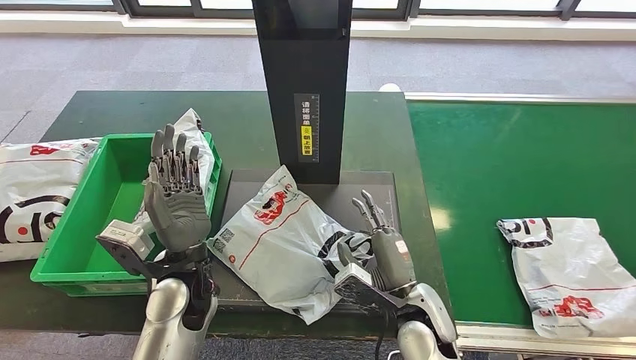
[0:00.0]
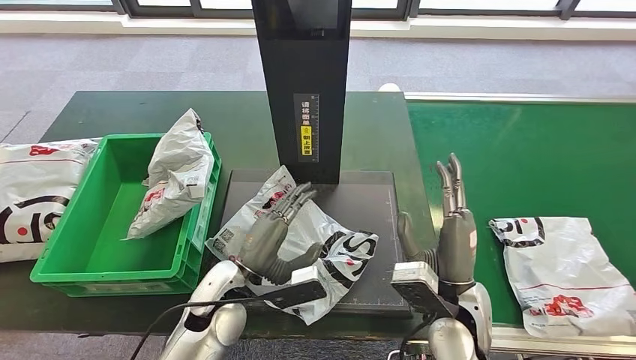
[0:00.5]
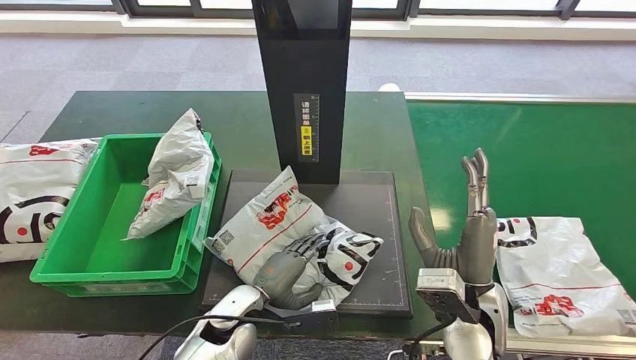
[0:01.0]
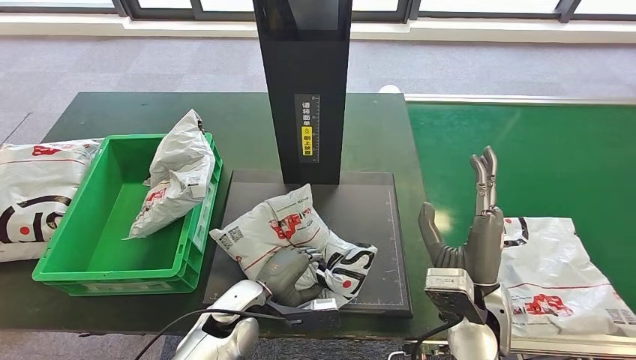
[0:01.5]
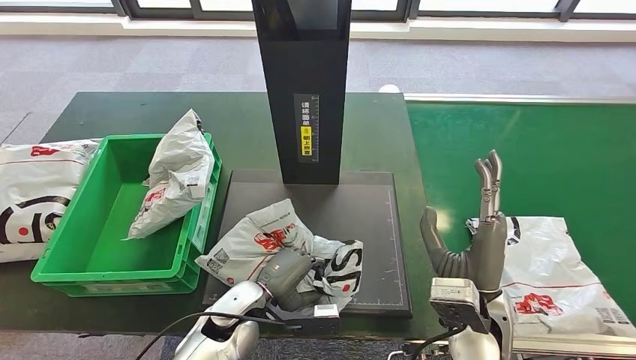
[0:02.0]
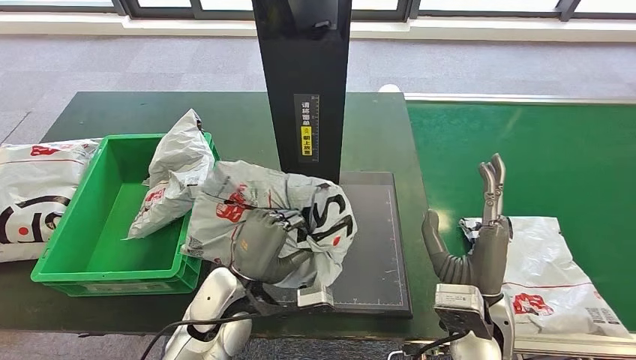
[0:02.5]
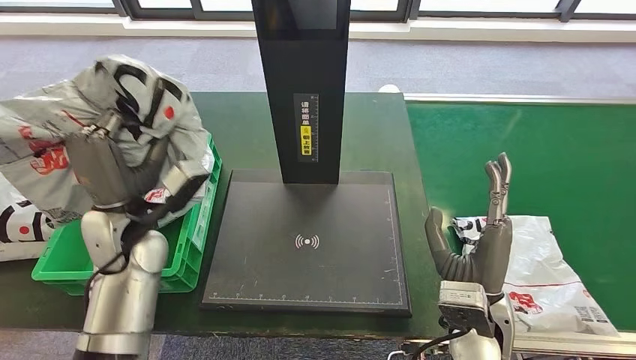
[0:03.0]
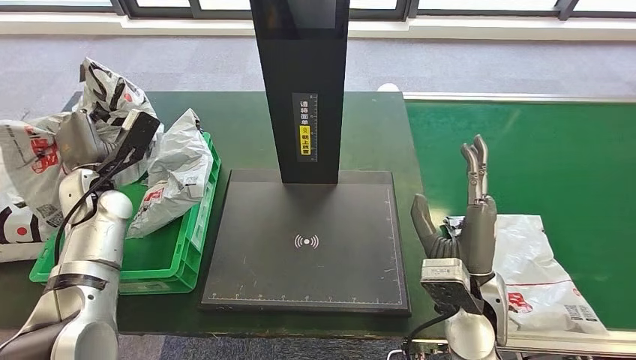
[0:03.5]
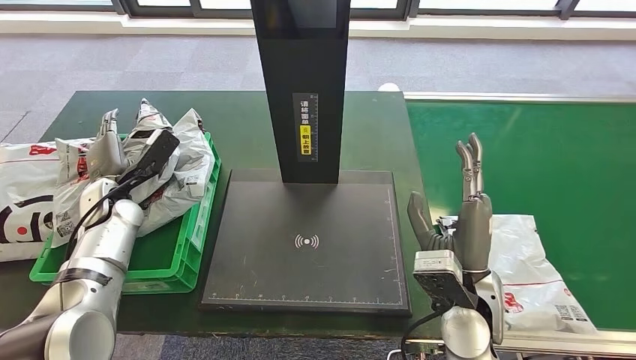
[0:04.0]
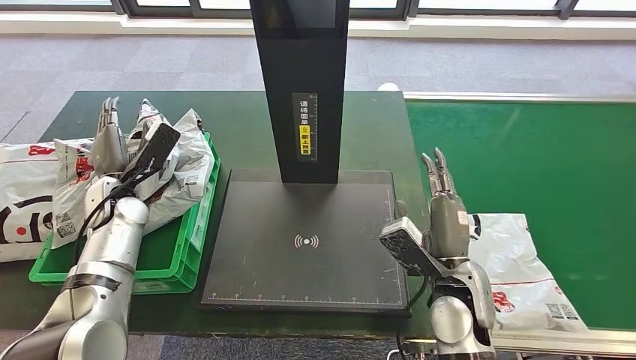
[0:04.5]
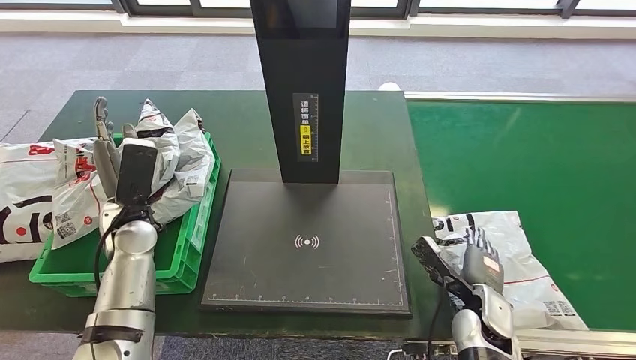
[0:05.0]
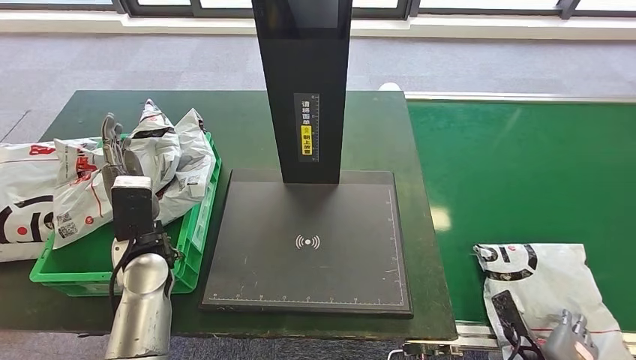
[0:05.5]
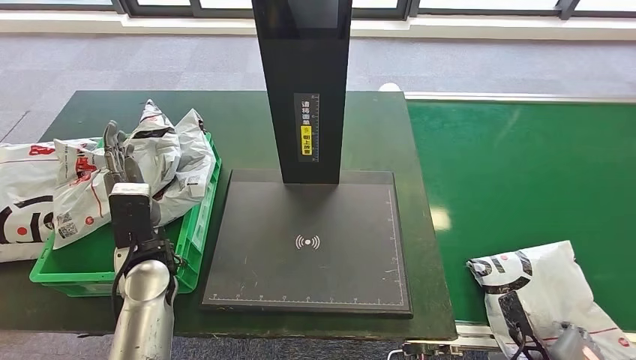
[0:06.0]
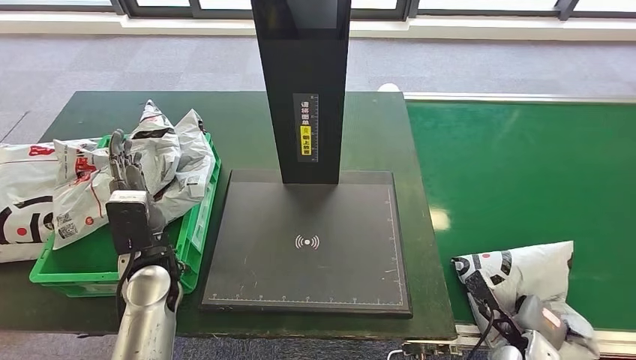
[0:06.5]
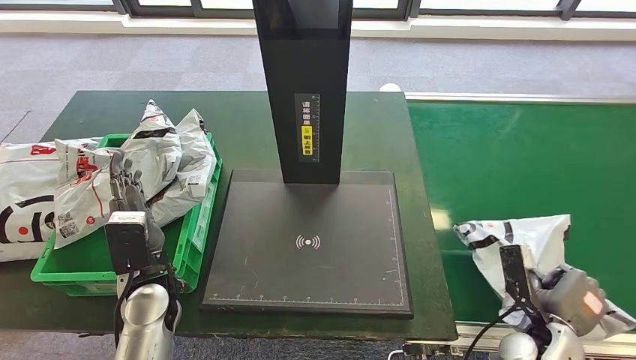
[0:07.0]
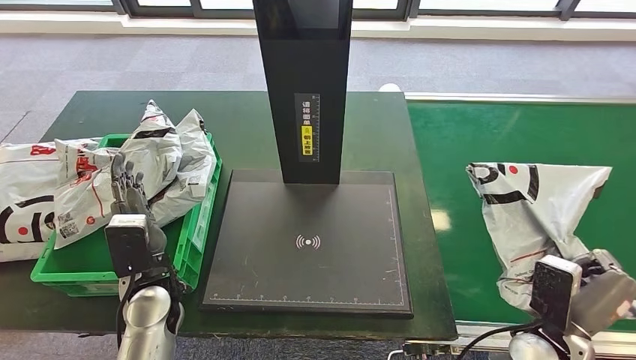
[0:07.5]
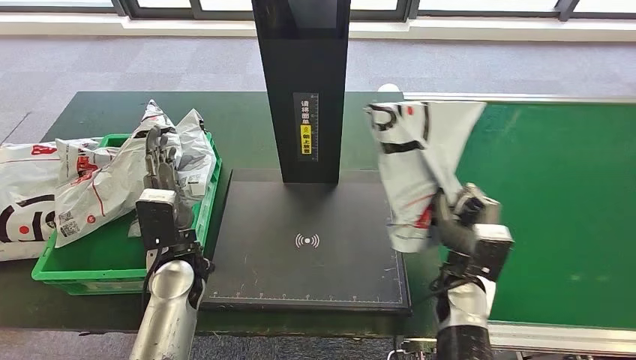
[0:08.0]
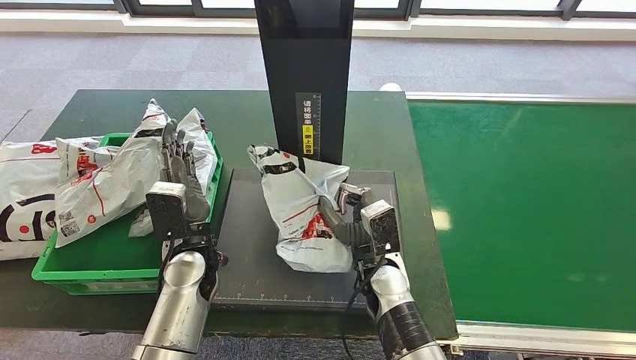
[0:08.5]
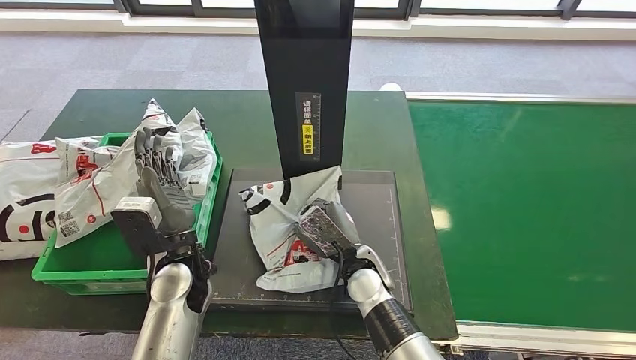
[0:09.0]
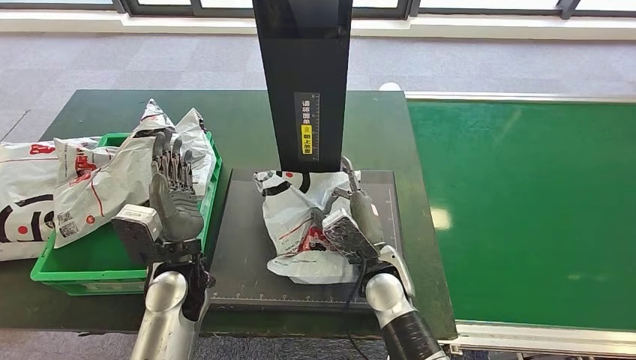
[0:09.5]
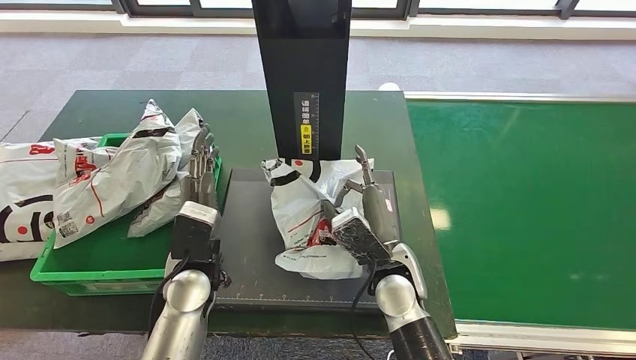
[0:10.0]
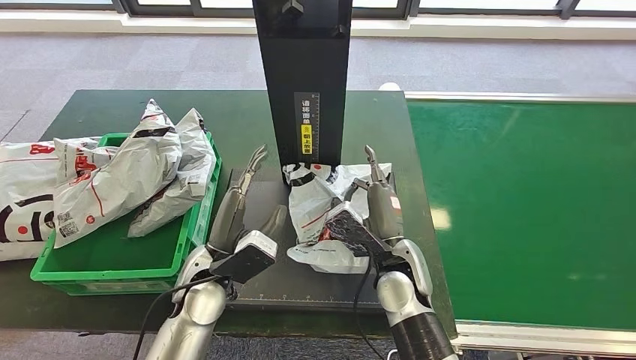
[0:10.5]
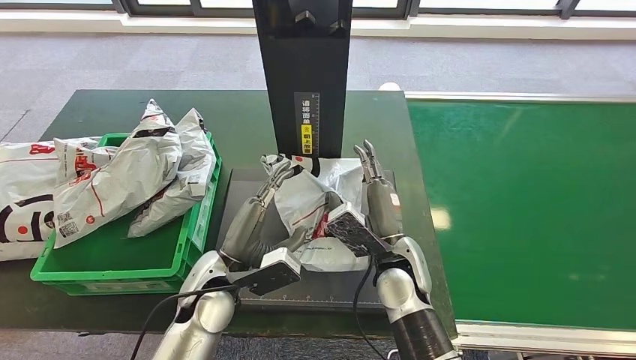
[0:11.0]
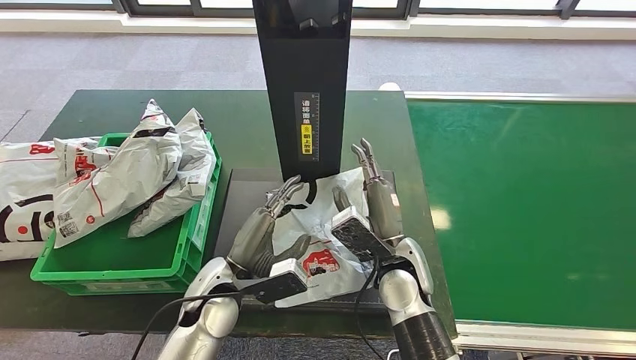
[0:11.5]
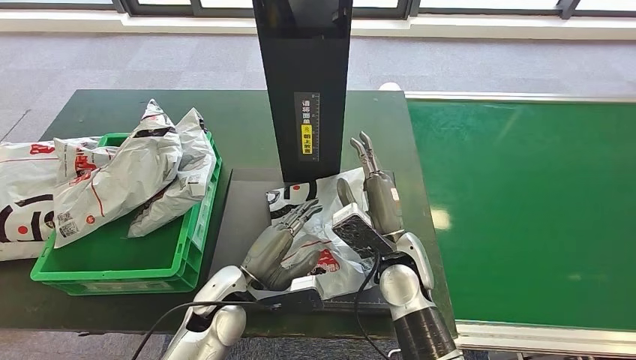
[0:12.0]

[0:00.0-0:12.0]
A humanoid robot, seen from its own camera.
Step, 0:00.0 to 0:02.5: Pick up the parcel from the inbound machine.
Step, 0:03.0 to 0:04.5: Place the parcel into the delivery box.
Step, 0:05.0 to 0:07.5: Pick up the parcel from the conveyor belt.
Step, 0:08.0 to 0:11.5: Place the parcel onto the inbound machine.
0:04.0 to 0:06.0: The right hand travels to the right, downward and backward by roughly 25 cm, while the left hand travels to the right and backward by about 15 cm.
0:10.0 to 0:12.0: The left hand travels downward by roughly 5 cm.

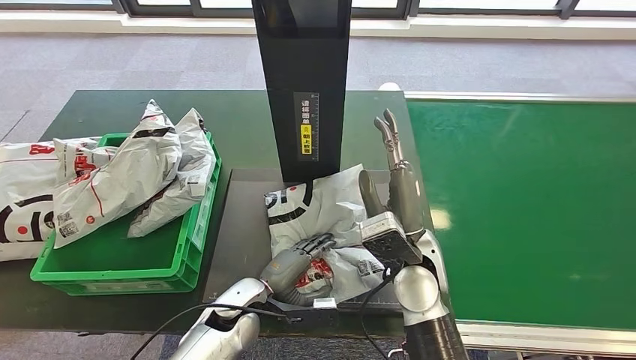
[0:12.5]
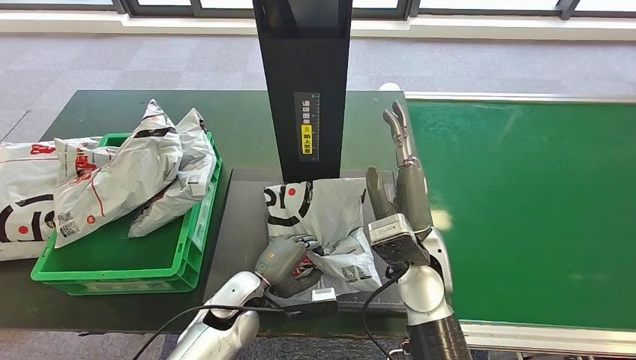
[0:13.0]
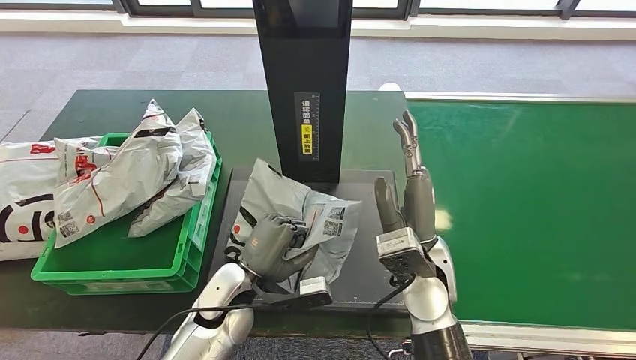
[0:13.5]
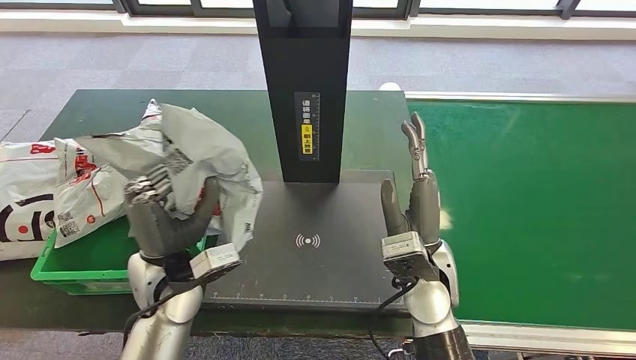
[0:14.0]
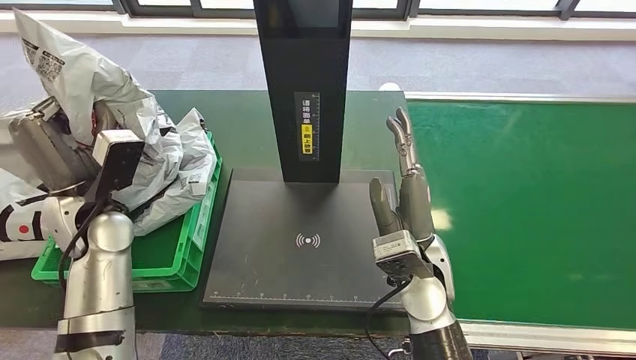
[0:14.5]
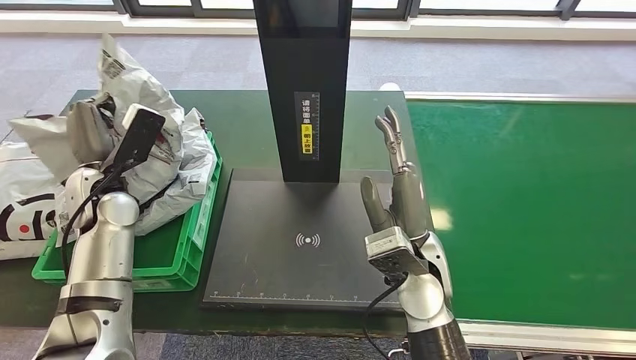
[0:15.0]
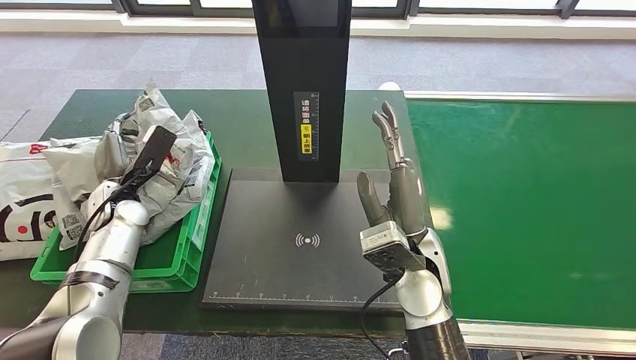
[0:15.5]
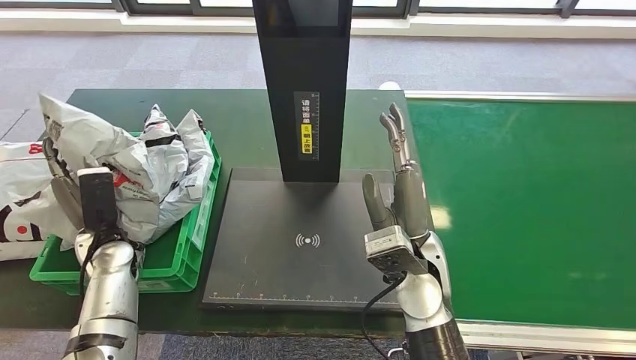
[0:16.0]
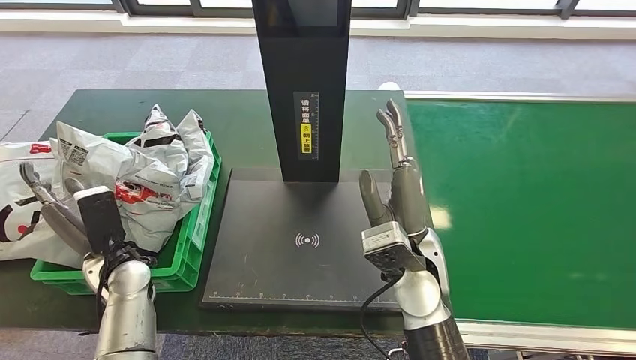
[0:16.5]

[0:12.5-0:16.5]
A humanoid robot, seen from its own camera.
Step, 0:14.5 to 0:16.5: Place the parcel into the delivery box.

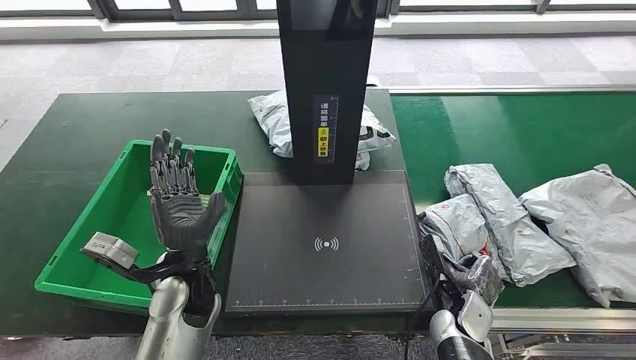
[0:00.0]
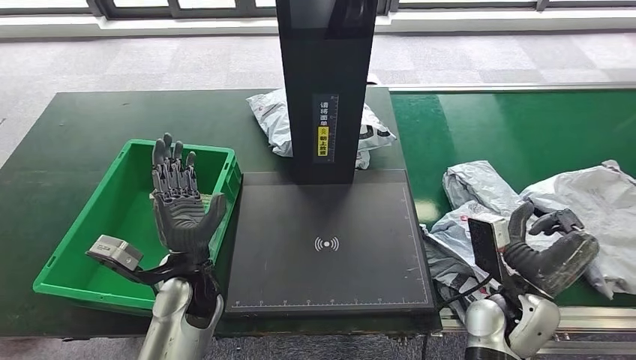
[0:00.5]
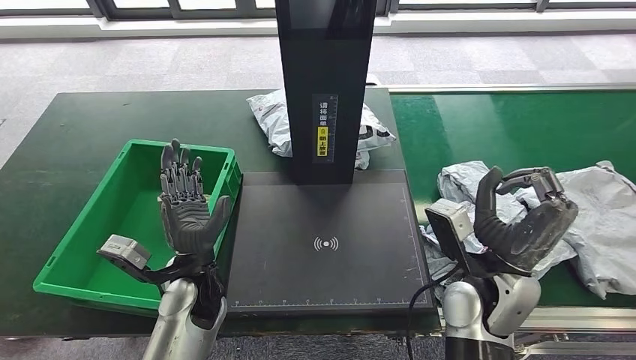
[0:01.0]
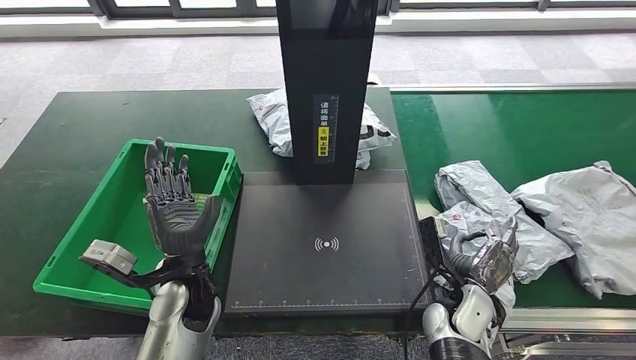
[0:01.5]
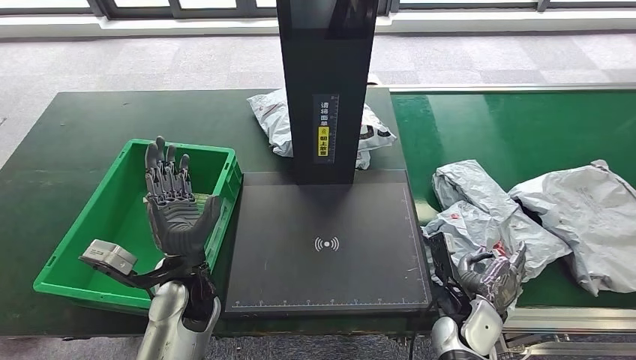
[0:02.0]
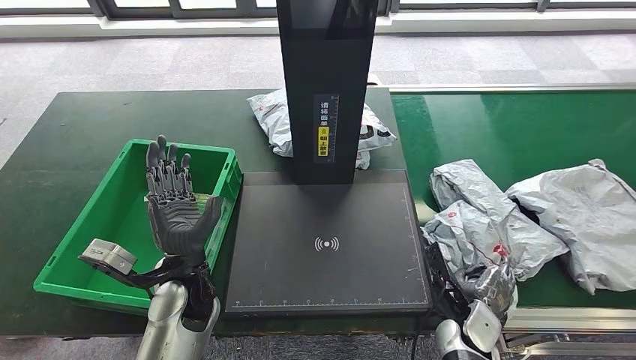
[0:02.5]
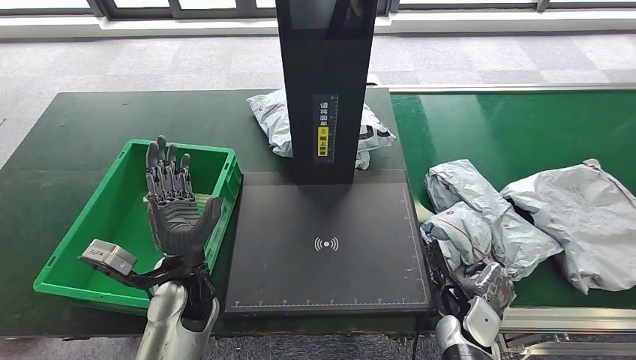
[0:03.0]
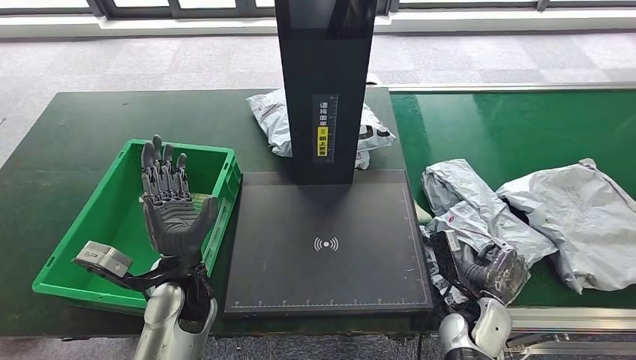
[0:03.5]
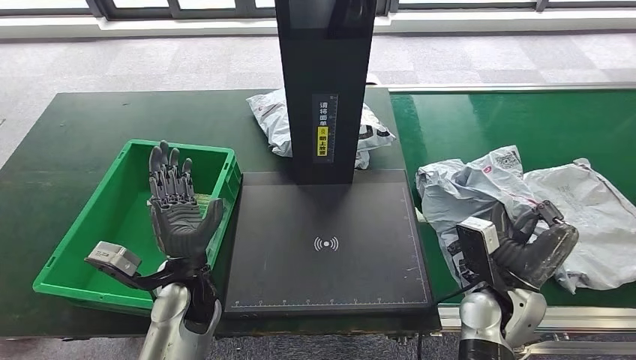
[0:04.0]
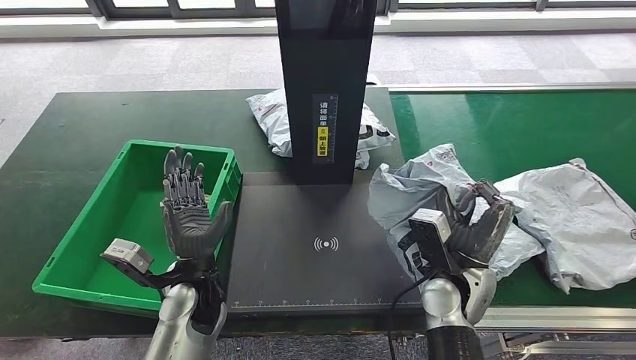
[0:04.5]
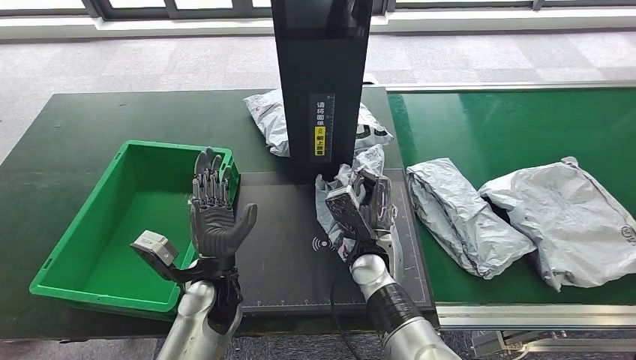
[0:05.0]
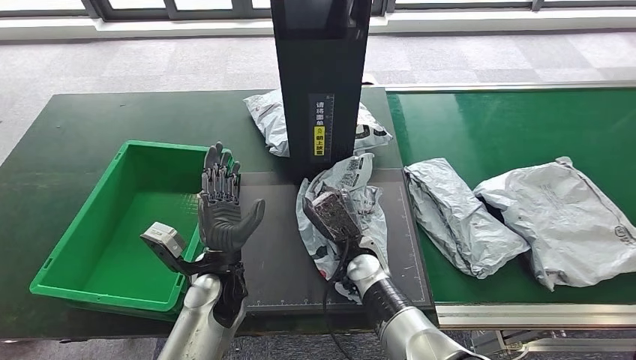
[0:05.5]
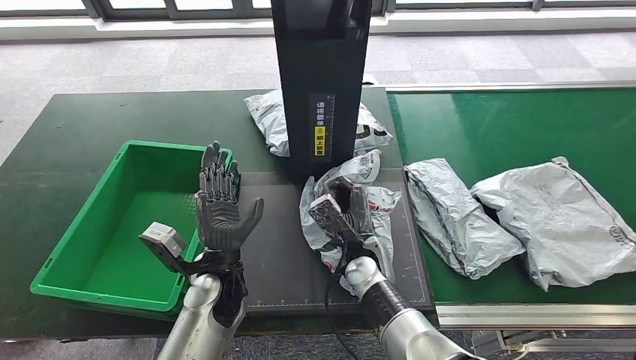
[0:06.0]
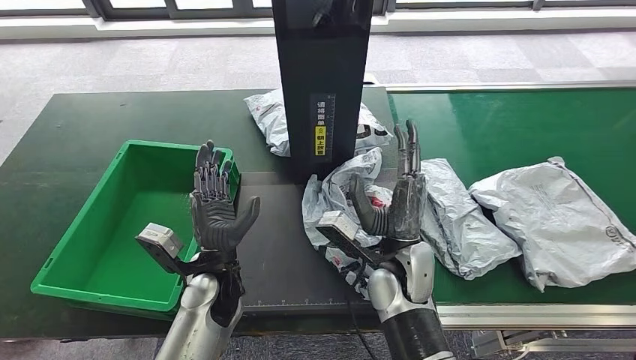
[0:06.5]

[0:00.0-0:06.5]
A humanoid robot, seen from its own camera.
Step, 0:00.0 to 0:04.5: Take the parcel off the conveyor belt.
0:02.0 to 0:04.5: The right hand is displaced upward by some 10 cm.
